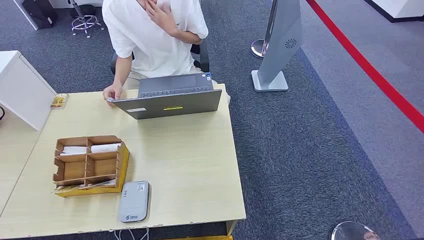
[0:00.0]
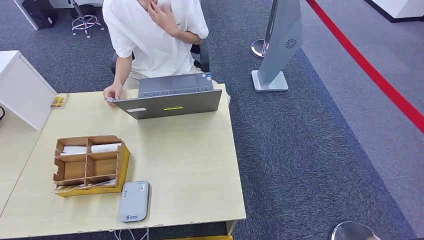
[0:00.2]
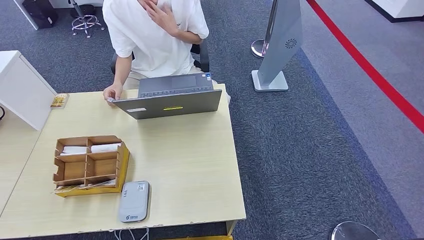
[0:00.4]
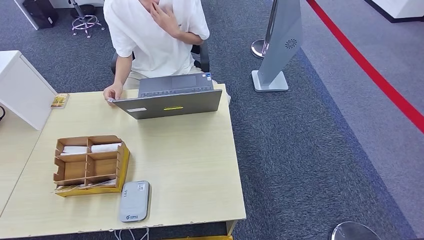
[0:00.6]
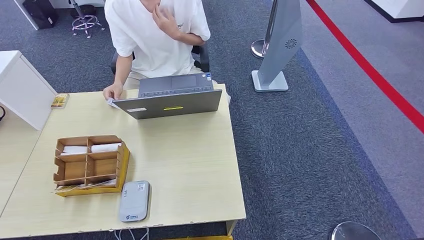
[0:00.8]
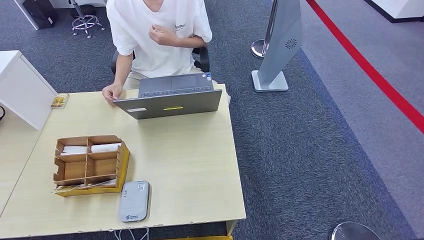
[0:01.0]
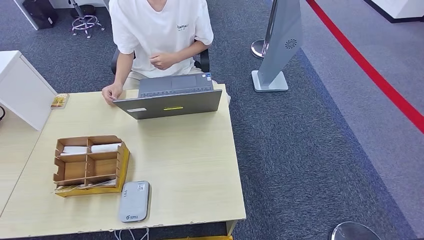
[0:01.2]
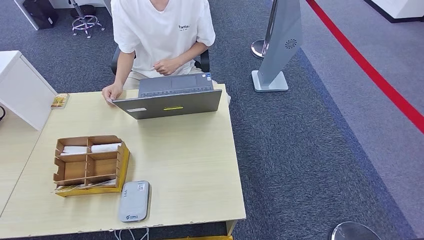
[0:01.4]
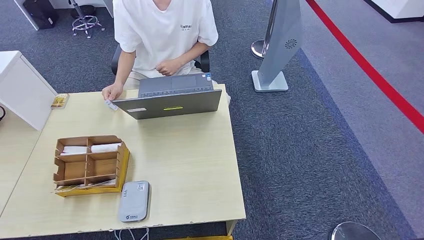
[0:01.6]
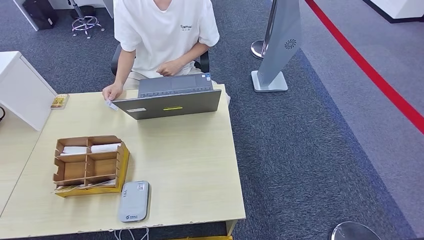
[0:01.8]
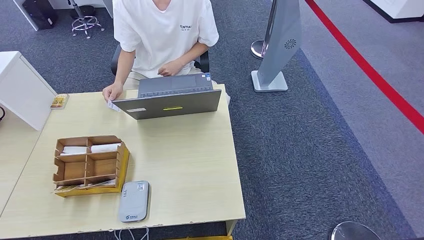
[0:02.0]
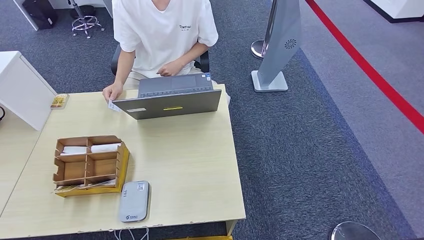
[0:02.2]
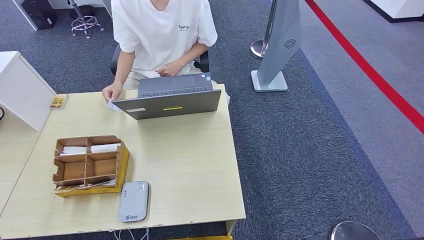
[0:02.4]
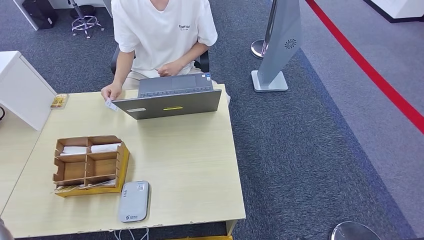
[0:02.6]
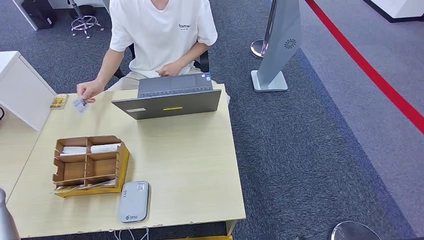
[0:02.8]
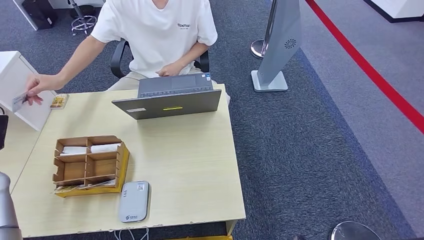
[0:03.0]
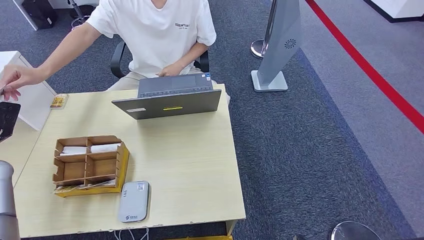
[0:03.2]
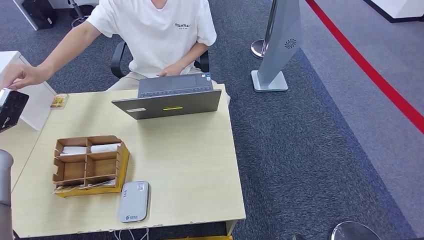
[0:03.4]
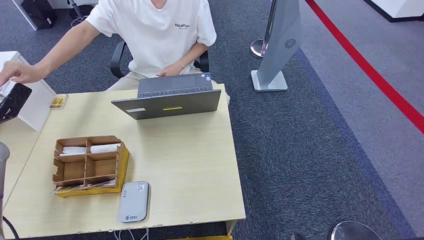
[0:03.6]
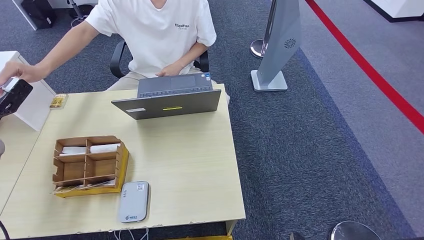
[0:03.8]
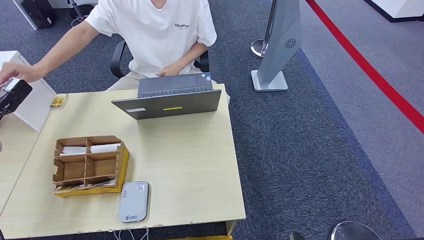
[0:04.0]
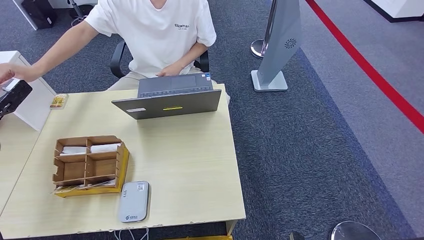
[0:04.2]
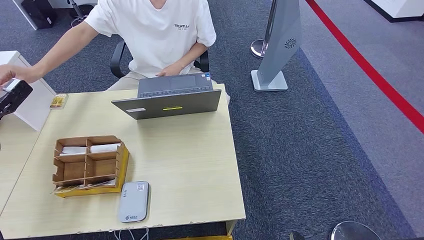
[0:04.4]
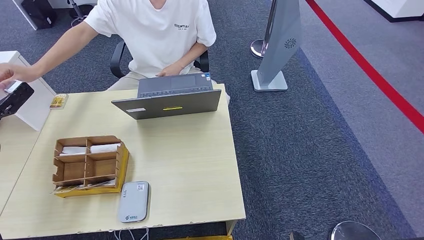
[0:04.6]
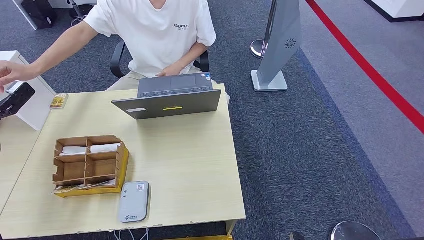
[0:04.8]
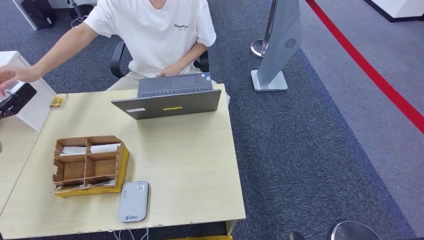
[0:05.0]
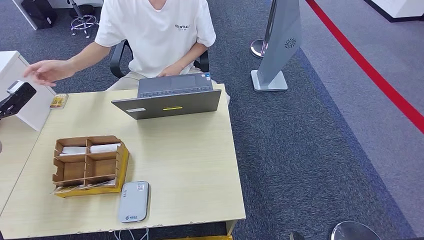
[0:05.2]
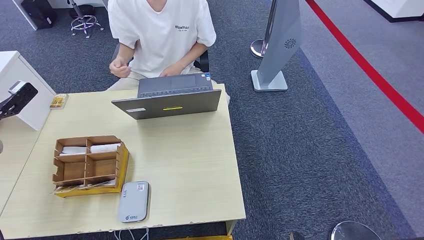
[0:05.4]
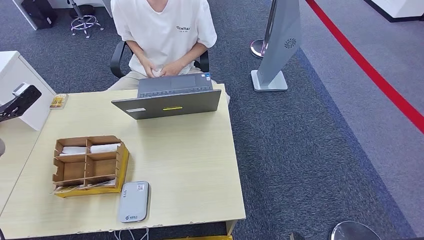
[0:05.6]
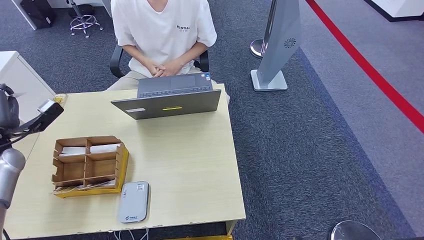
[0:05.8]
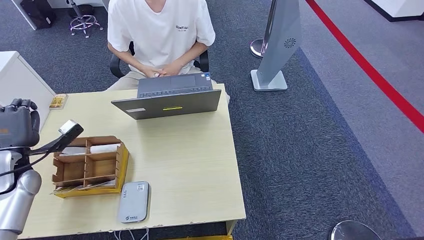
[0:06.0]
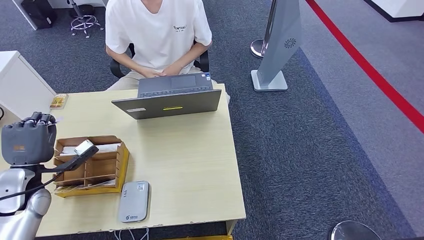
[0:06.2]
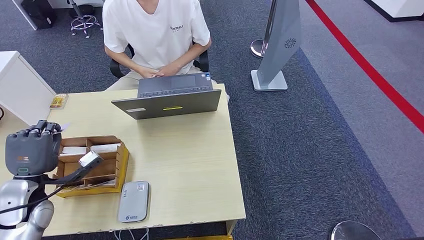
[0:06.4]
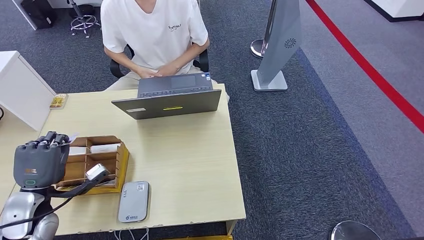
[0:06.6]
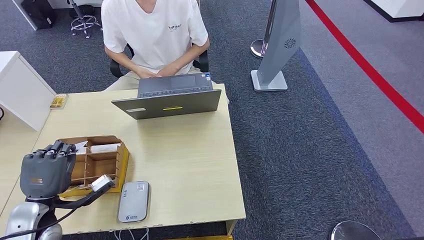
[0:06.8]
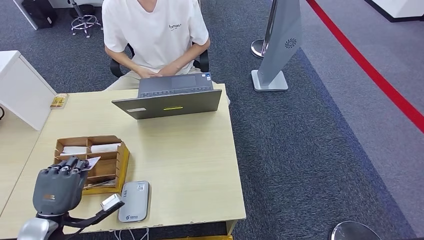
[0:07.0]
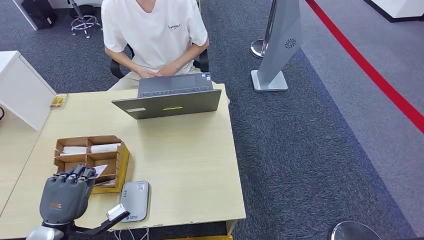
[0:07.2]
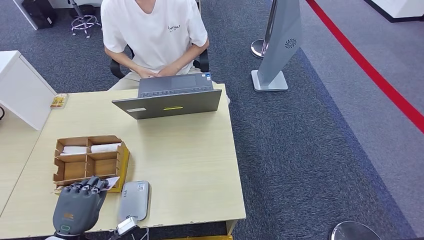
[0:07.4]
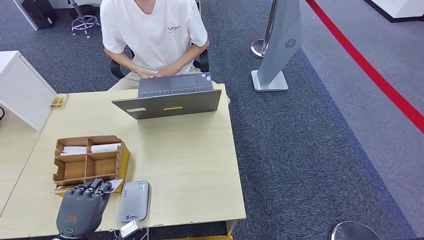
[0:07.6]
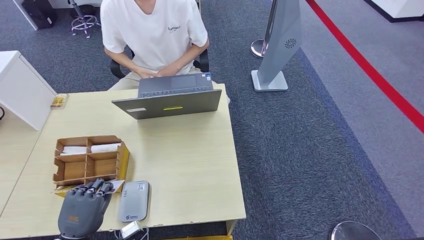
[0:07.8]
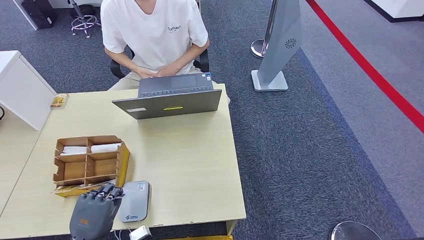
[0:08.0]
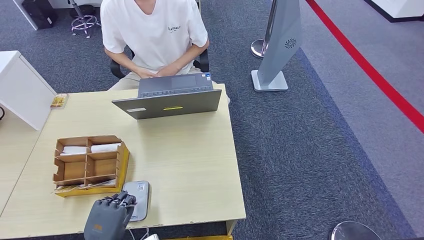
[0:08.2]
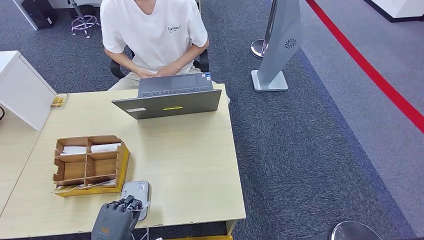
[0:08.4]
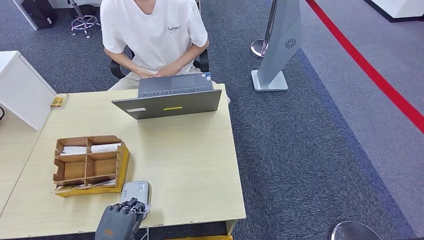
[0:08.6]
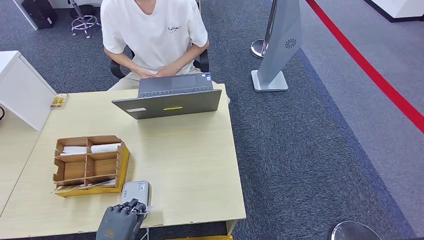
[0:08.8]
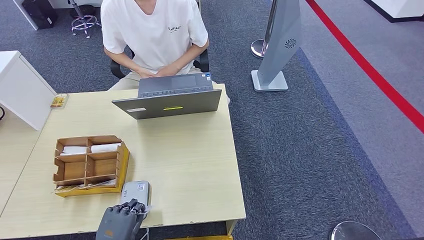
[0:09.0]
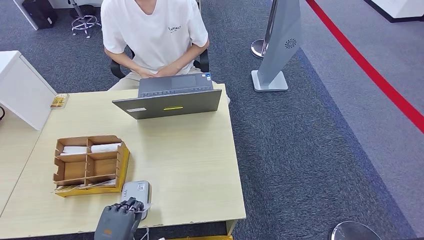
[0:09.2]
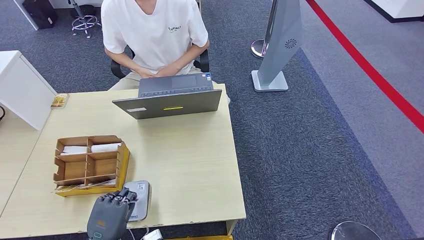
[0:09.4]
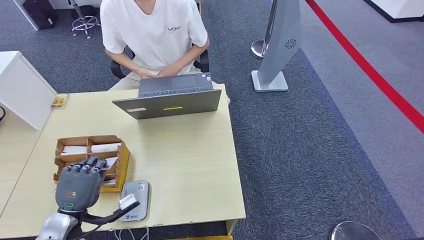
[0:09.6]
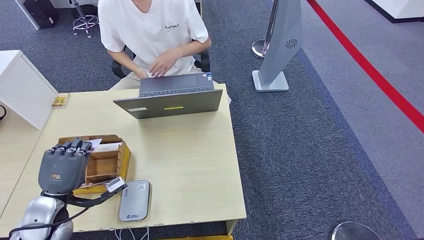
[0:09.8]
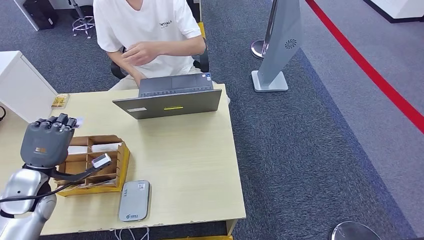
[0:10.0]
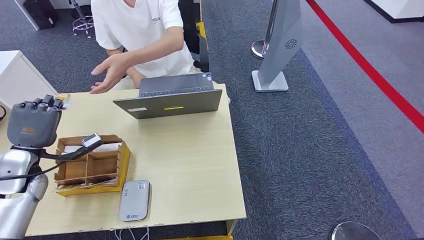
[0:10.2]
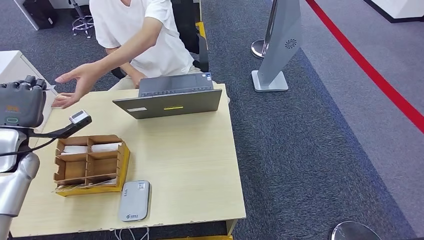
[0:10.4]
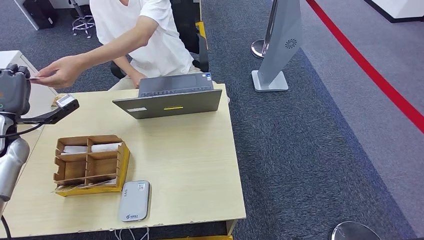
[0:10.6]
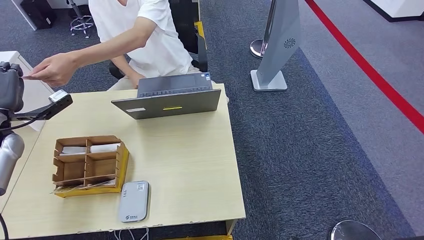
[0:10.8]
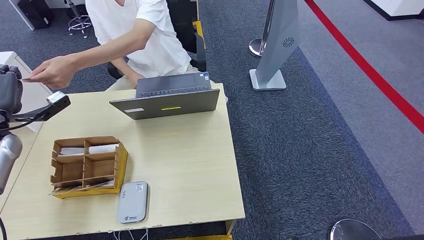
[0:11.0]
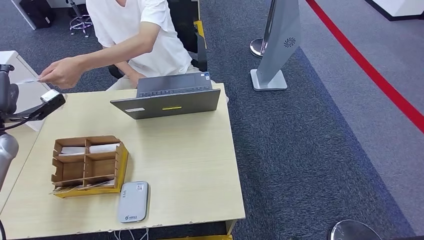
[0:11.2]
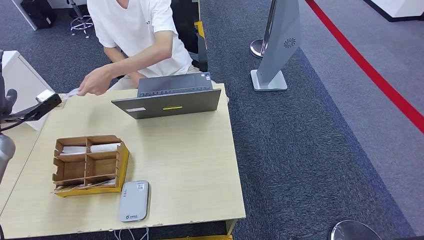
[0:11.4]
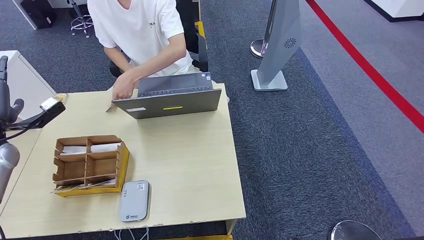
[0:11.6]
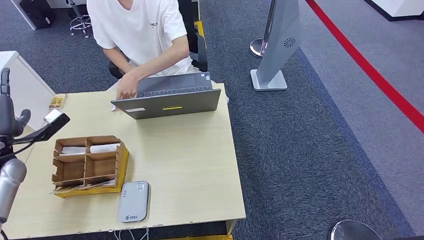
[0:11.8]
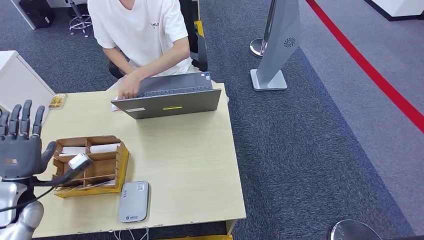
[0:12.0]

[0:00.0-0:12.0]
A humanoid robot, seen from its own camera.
Step, 0:00.0 to 0:06.0: Take the ID card from the person's hand.
Step, 0:06.2 to 0:09.0: Place the ID card on the card reader.
Step, 0:09.2 to 0:11.2: Hand the ID card to the person.
0:01.6 to 0:03.0: The left hand travels forward by roughly 25 cm.
0:03.0 to 0:04.4: The left hand moves forward and upward, approximately 10 cm.
0:04.4 to 0:06.0: The left hand heads to the right, downward and backward, covering approximately 15 cm.
0:06.0 to 0:07.6: The left hand is displaced backward, to the right and downward by roughly 25 cm.
0:07.6 to 0:09.0: The left hand shifts about 5 cm to the right.
0:09.0 to 0:10.4: The left hand moves forward, upward and to the left, about 35 cm.
0:10.4 to 0:12.0: The left hand goes roughly 10 cm backward and downward.

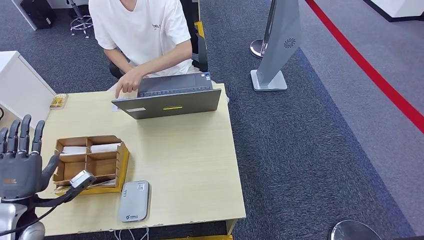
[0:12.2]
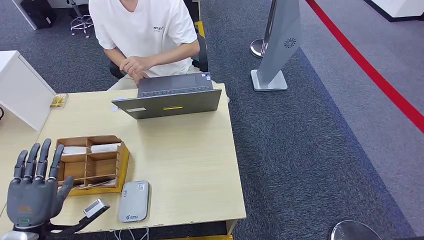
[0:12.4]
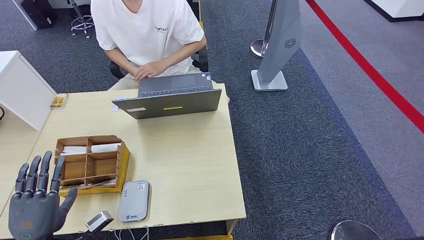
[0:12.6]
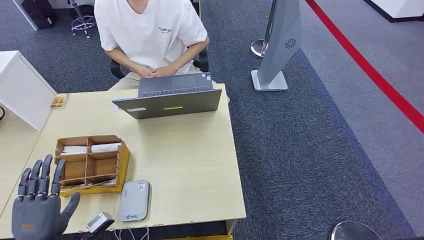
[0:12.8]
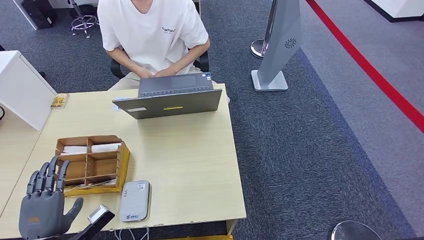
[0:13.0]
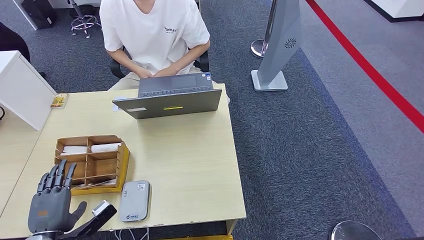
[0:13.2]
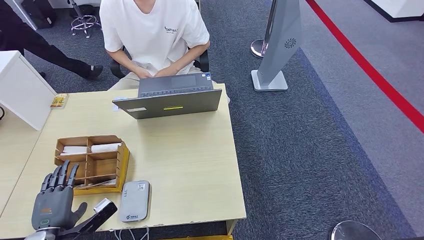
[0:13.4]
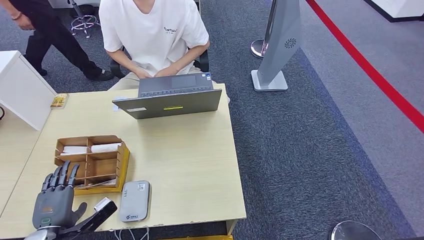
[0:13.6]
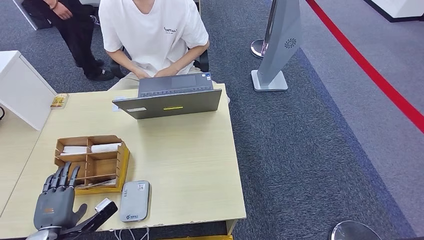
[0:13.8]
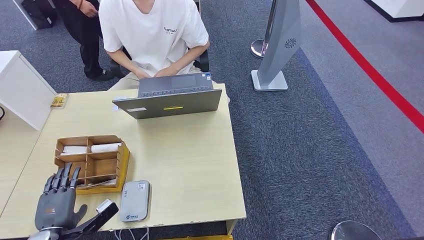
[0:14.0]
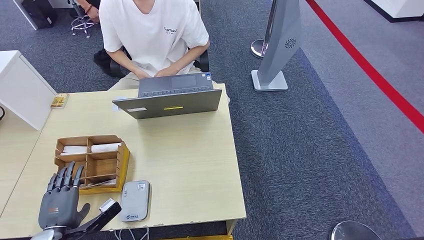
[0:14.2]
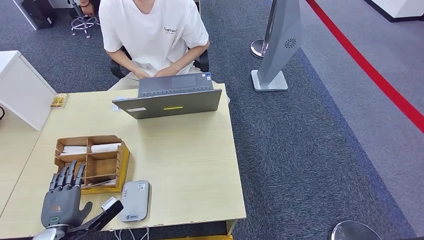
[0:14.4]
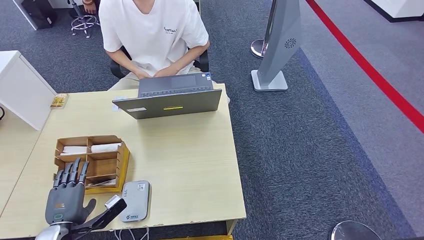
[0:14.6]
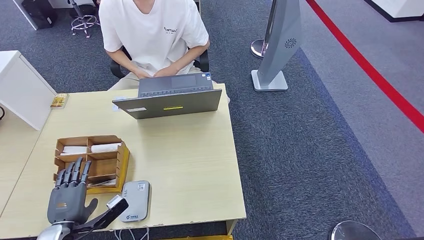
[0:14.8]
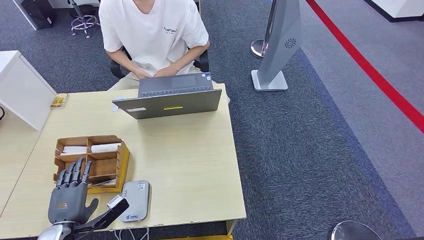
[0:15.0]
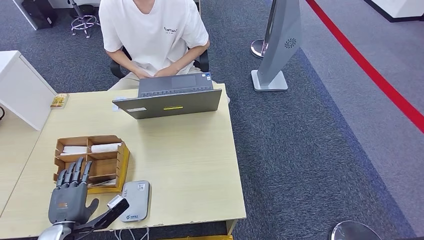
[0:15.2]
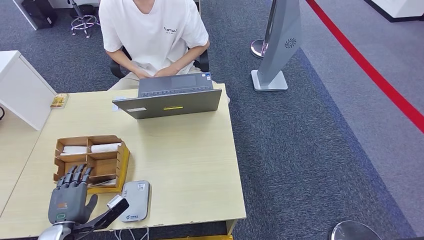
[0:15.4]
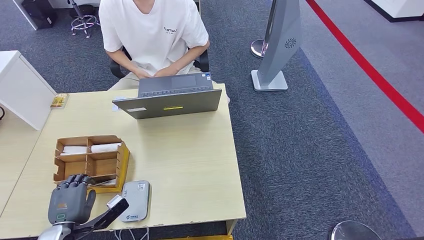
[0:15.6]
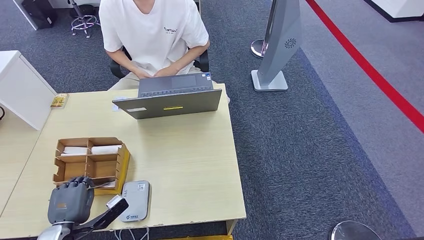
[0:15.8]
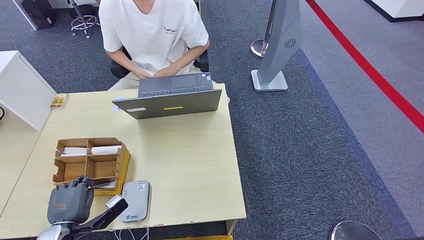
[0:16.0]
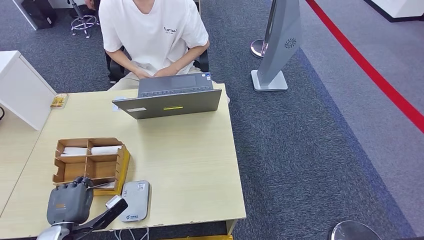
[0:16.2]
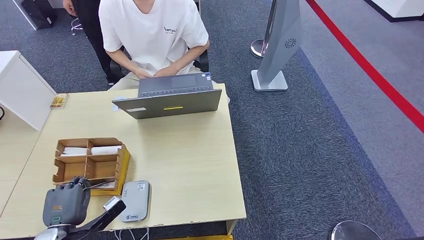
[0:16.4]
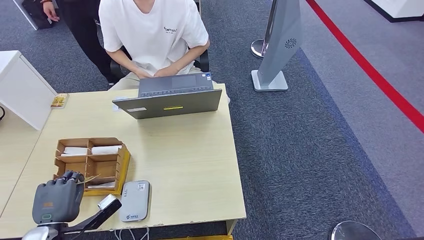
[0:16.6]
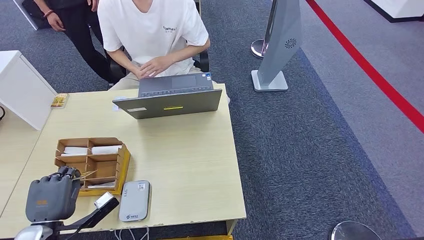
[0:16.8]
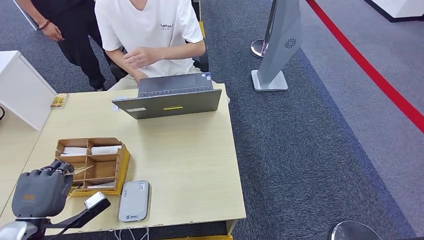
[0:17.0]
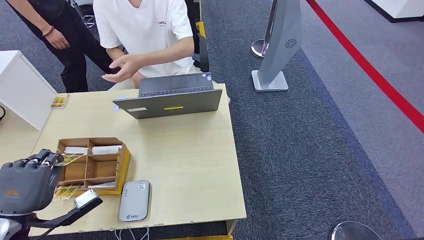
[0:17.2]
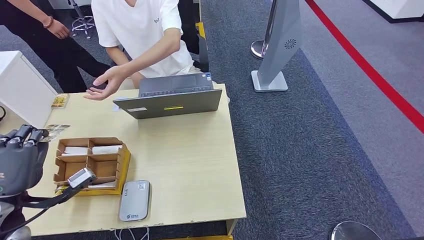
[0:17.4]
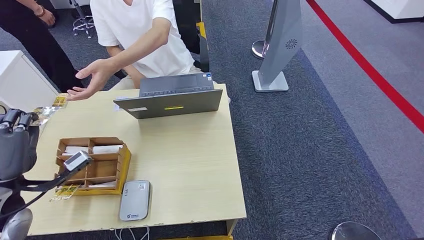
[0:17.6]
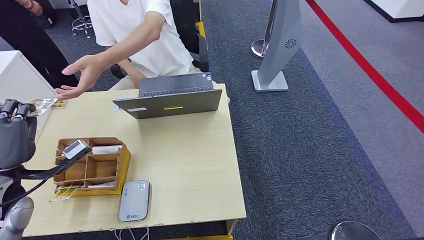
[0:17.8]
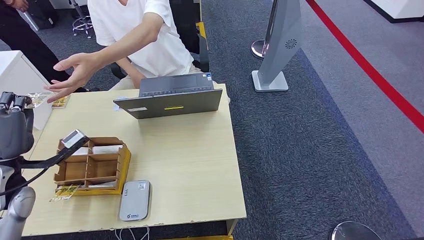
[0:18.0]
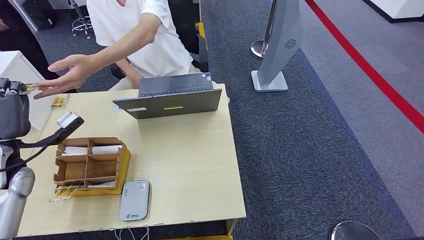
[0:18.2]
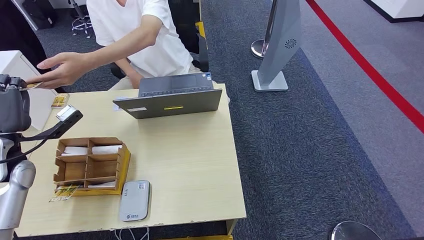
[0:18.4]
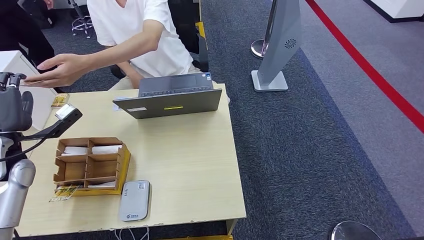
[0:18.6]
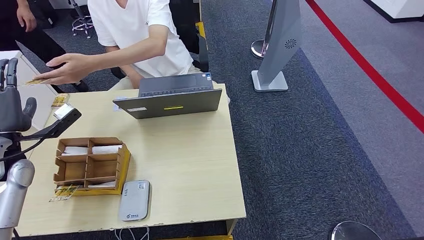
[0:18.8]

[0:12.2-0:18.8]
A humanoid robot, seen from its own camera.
Step, 0:12.2 to 0:16.4: Pick up the room key from the key card box.
0:12.2 to 0:13.8: The left hand goes approximately 10 cm downward and backward.
0:13.8 to 0:15.4: The hands stay close to where they were, moving slightly.
0:15.4 to 0:17.2: The left hand goes some 10 cm upward.
